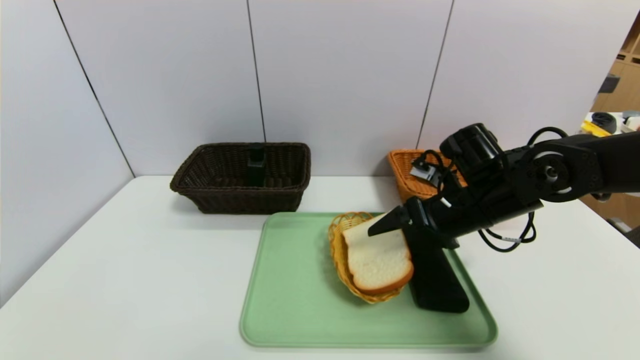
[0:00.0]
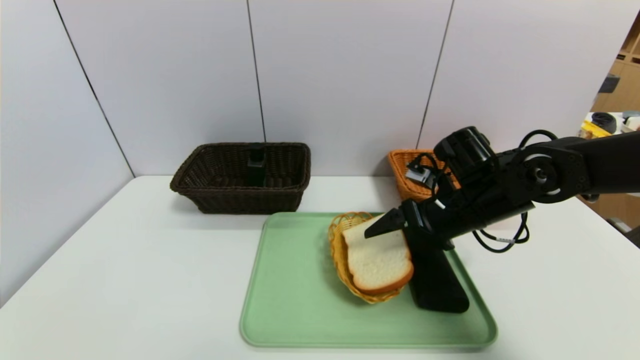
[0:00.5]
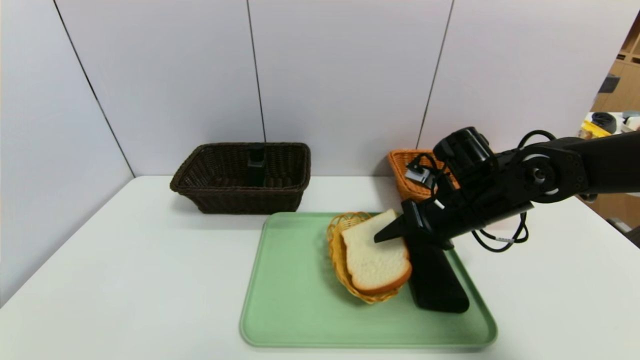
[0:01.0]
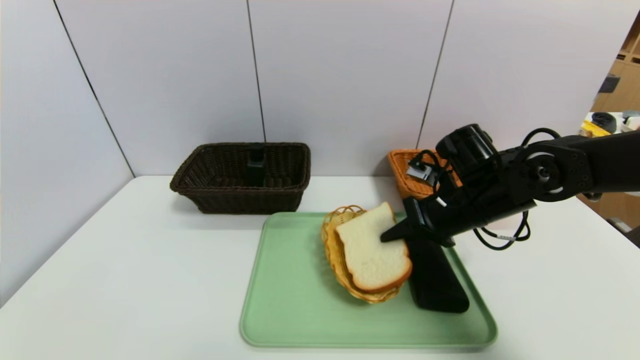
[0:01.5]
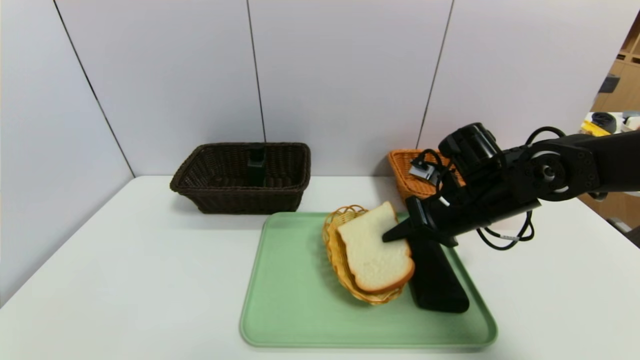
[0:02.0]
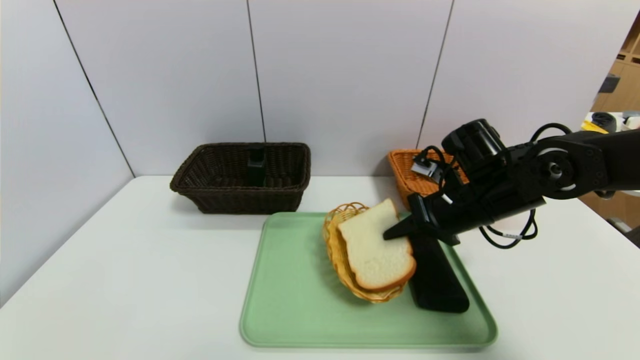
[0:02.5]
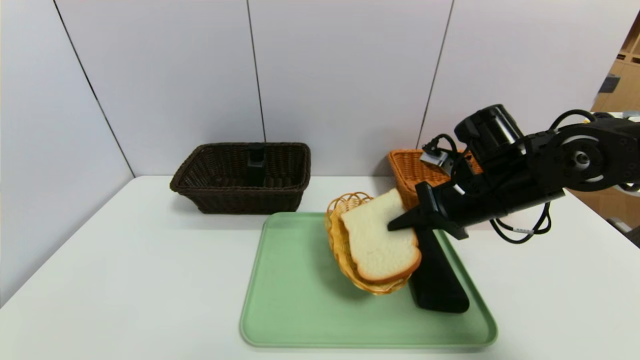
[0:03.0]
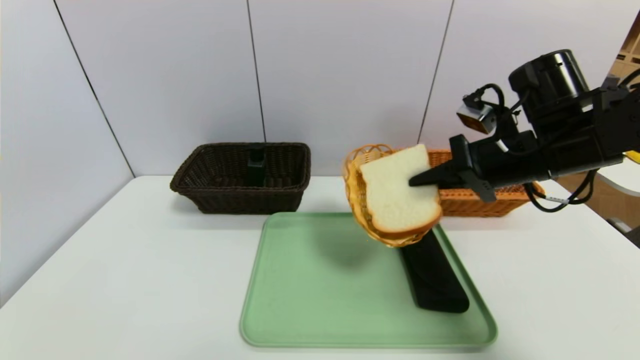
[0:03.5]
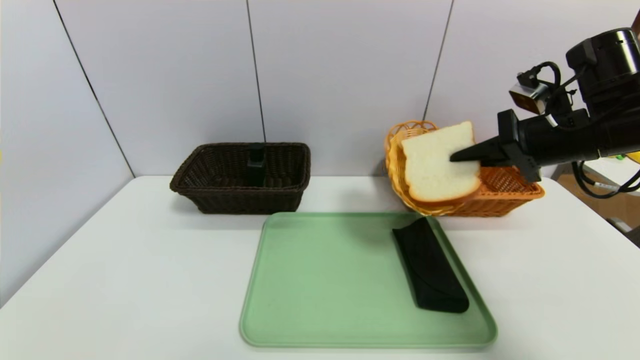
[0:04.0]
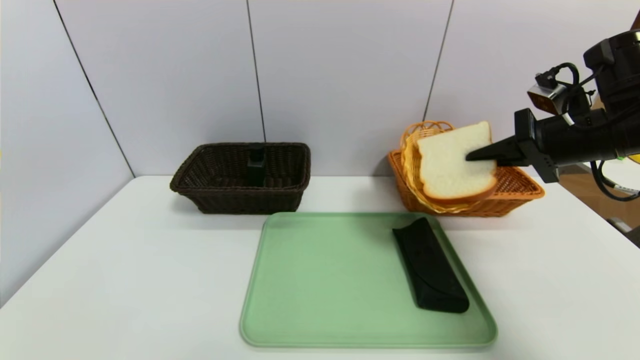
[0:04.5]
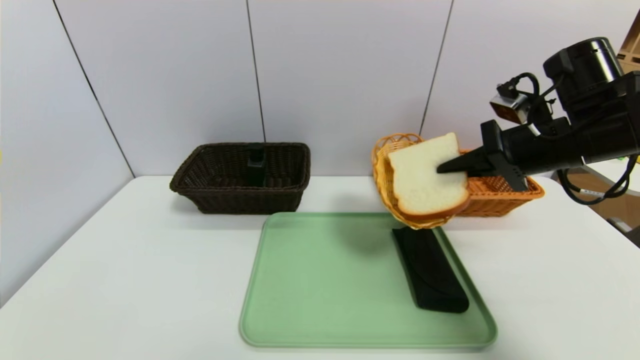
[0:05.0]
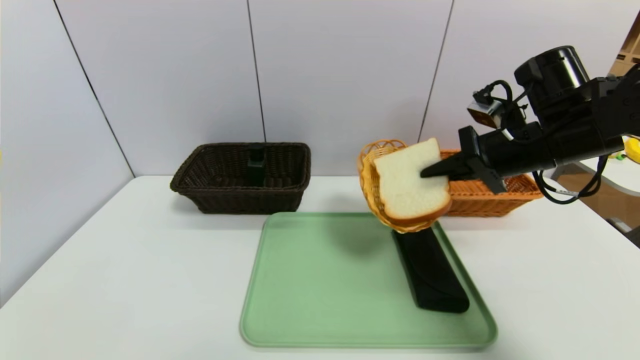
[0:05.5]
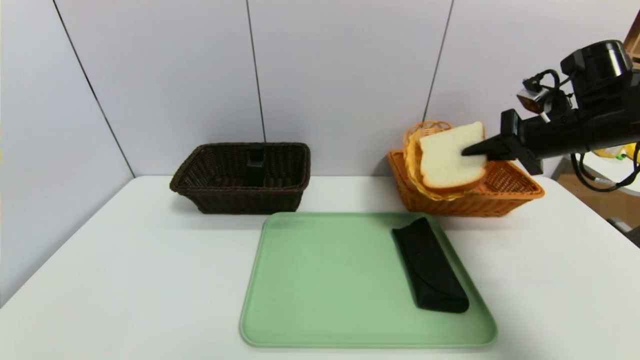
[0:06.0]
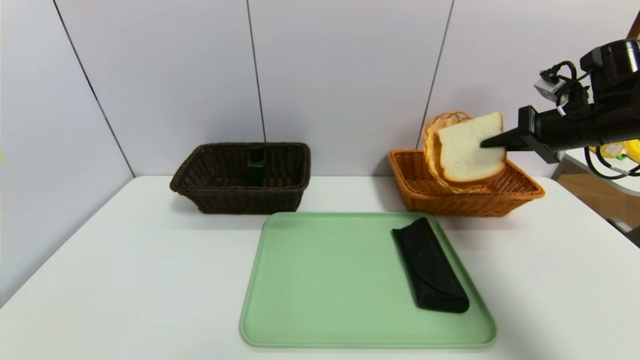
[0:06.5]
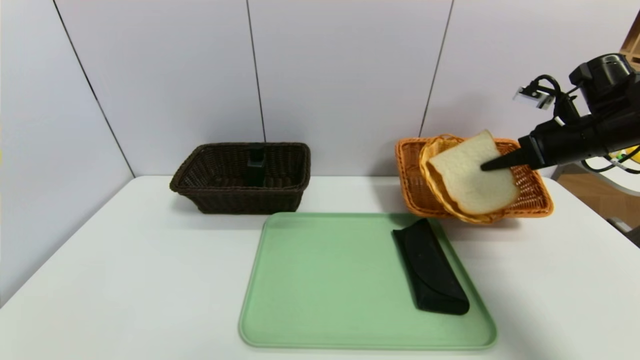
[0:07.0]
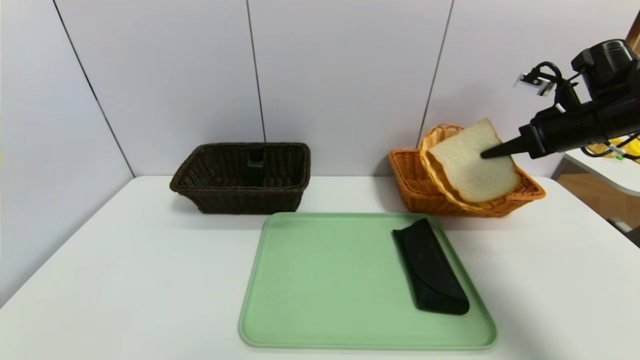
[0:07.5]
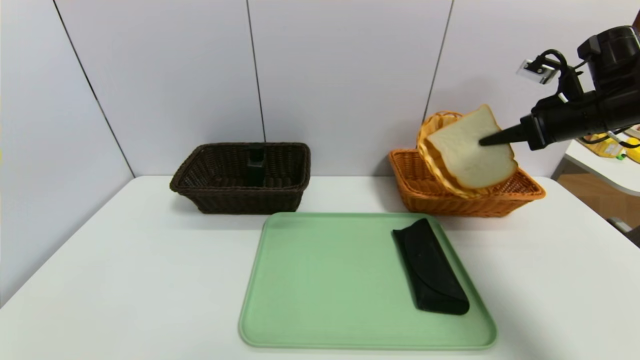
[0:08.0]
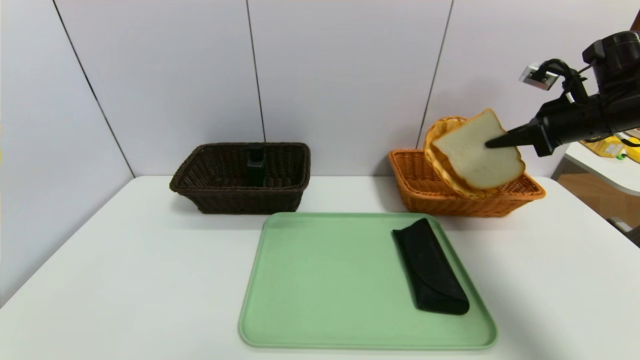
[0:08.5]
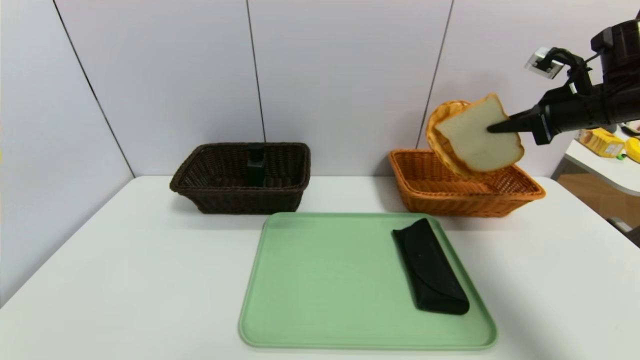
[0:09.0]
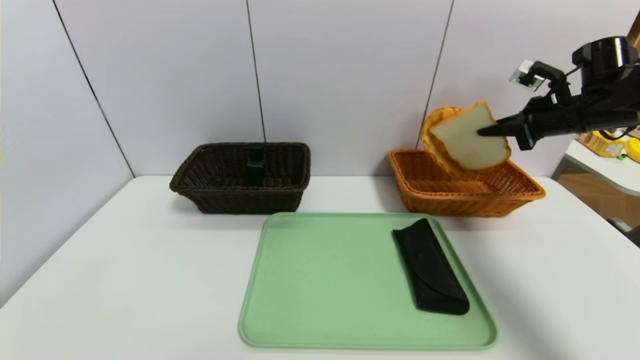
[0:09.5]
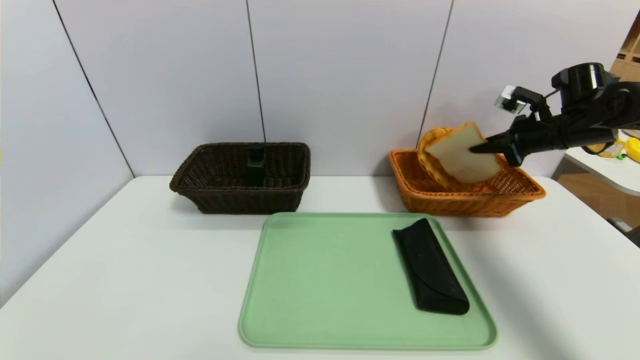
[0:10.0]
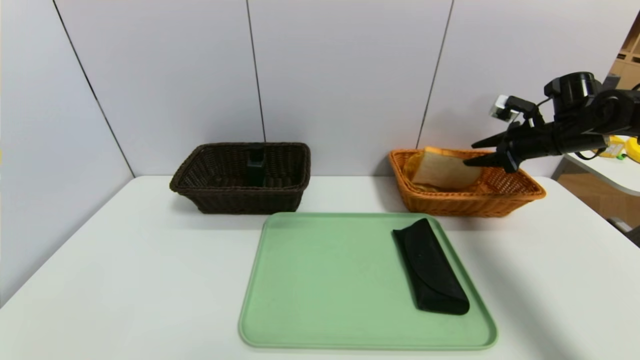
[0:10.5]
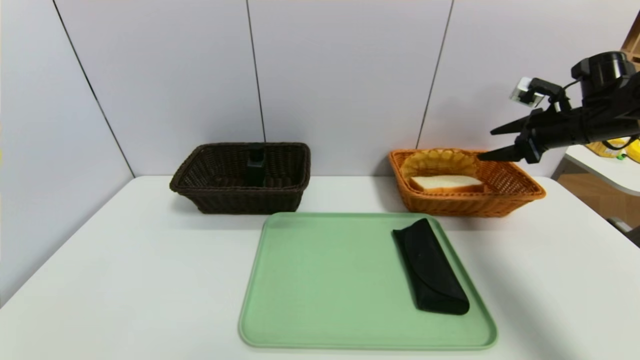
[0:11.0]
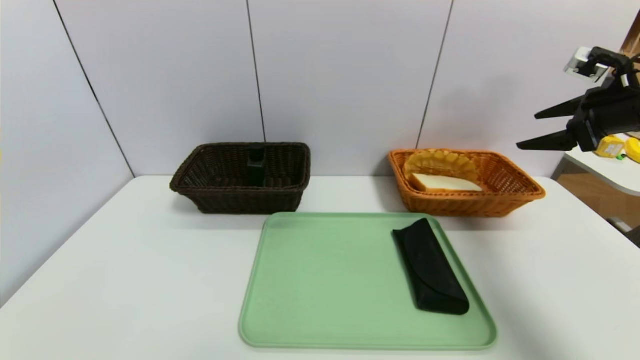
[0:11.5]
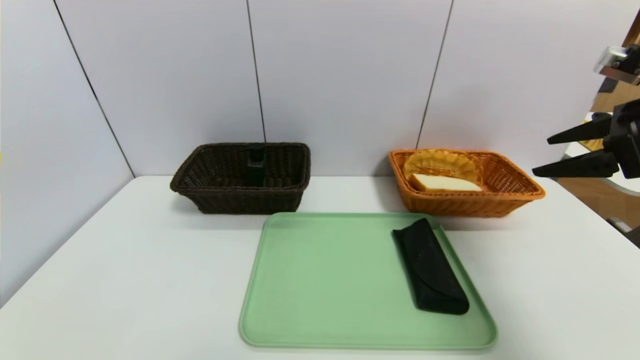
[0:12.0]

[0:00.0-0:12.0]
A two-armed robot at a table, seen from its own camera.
Task of the whole recording: place the food in the right basket with the right gripper, and place the non food items in the left basket with the left gripper.
Step, 0:00.0 to 0:10.5: Grasp the bread slice and put it in the right basket.
0:00.0 to 0:02.0: The right gripper closes.
0:02.0 to 0:04.0: The right gripper is displaced upward and to the right by some 15 cm.
0:04.0 to 0:06.0: The right gripper moves roughly 5 cm.
0:08.0 to 0:10.0: The right gripper is displaced forward and downward by roughly 10 cm.
0:10.0 to 0:12.0: The right gripper travels backward and upward by approximately 20 cm, and opens its fingers.
